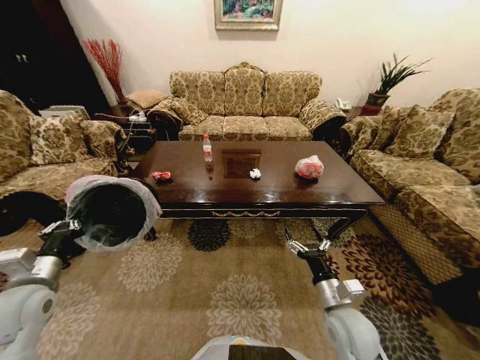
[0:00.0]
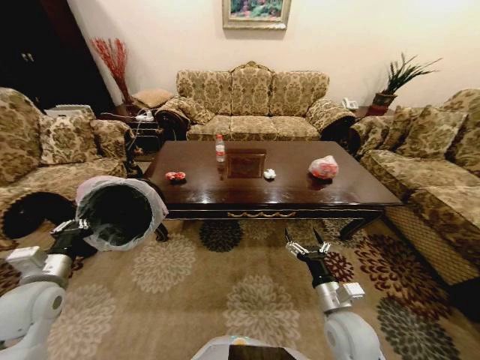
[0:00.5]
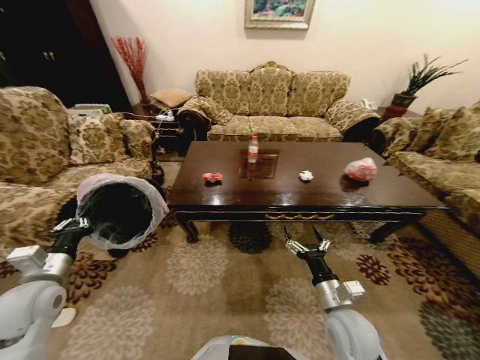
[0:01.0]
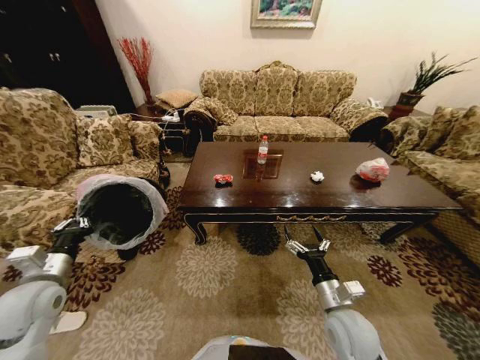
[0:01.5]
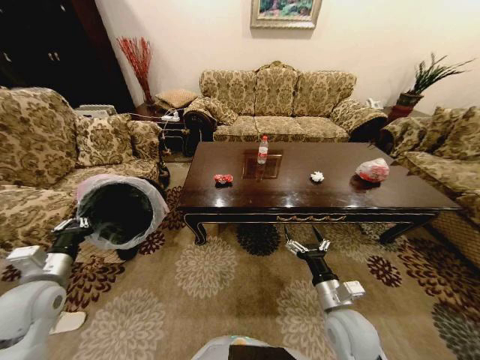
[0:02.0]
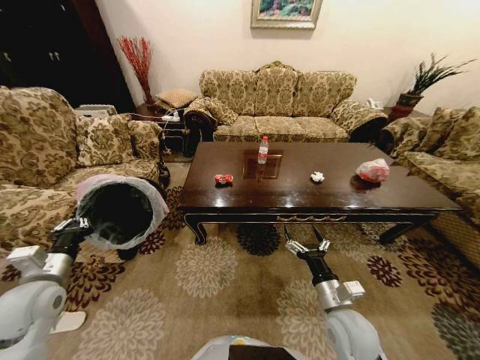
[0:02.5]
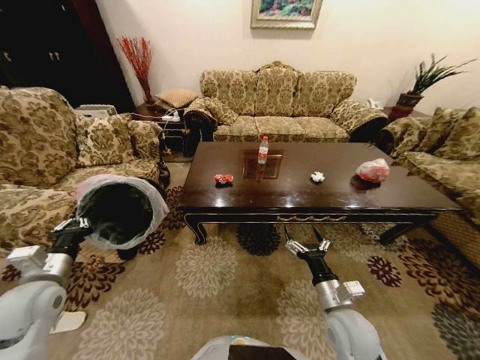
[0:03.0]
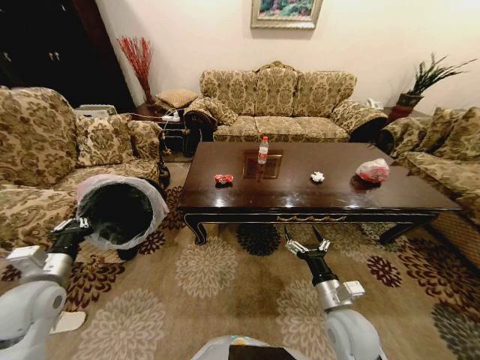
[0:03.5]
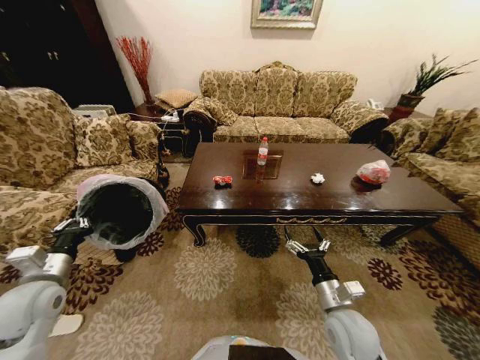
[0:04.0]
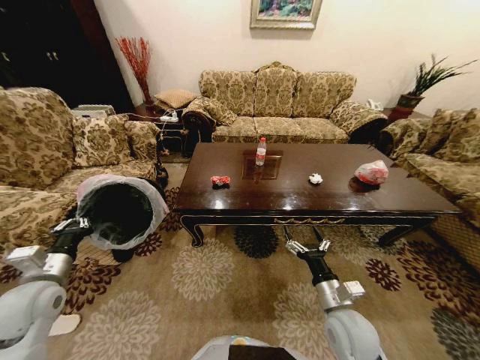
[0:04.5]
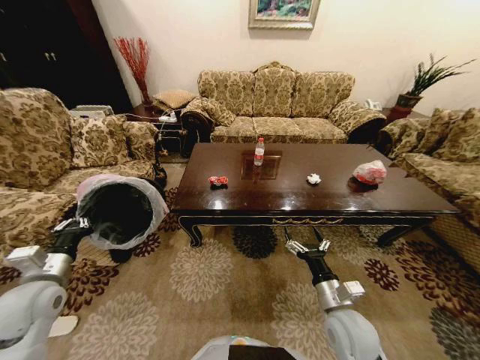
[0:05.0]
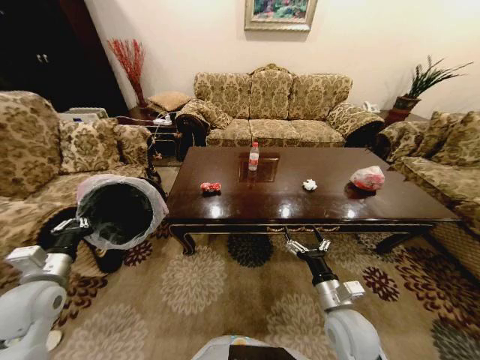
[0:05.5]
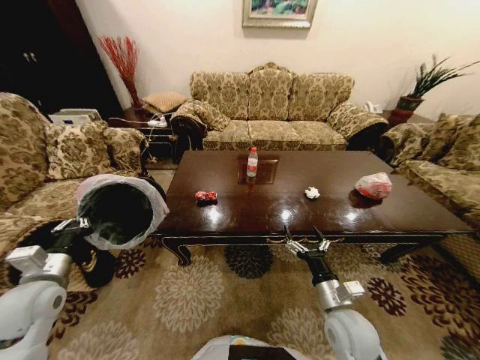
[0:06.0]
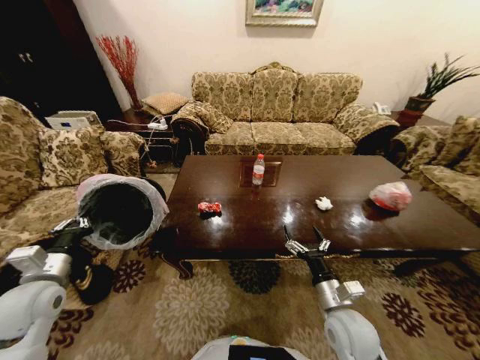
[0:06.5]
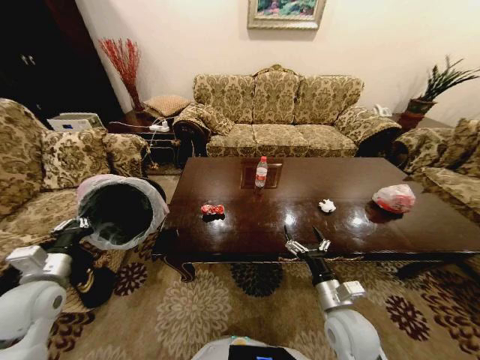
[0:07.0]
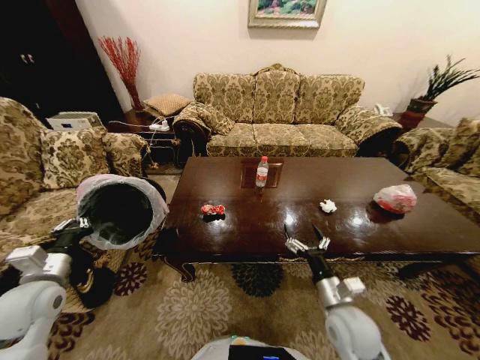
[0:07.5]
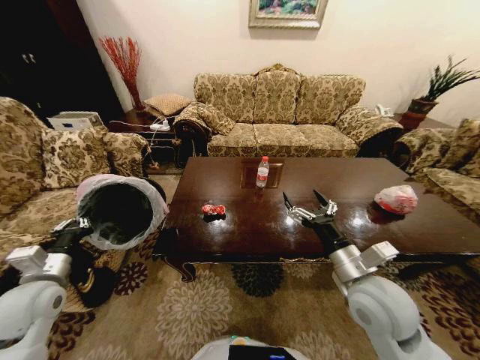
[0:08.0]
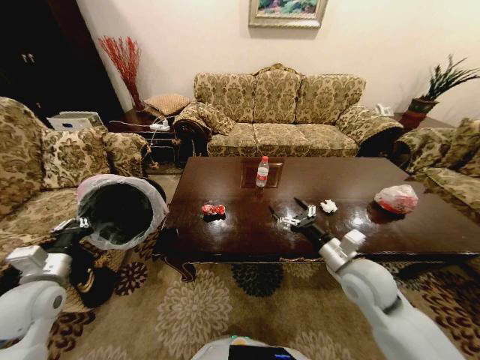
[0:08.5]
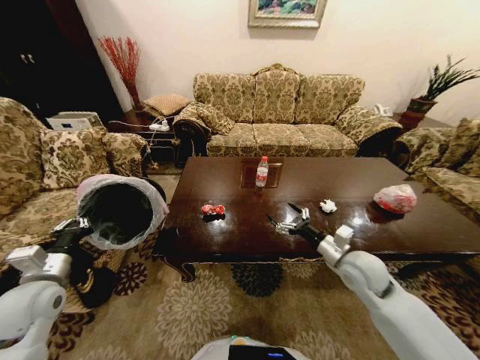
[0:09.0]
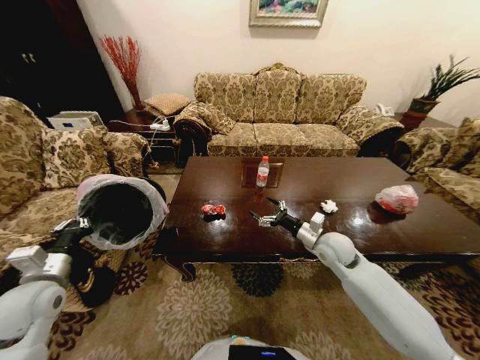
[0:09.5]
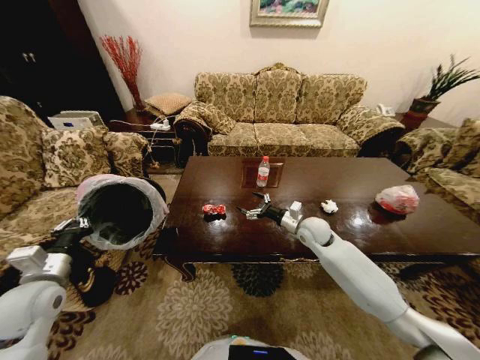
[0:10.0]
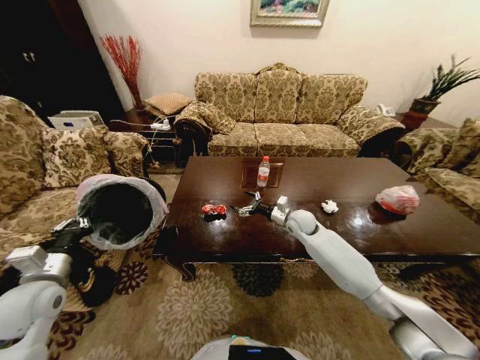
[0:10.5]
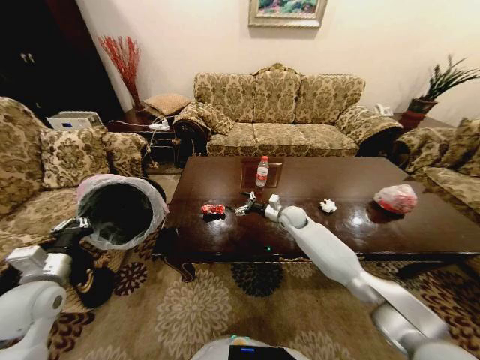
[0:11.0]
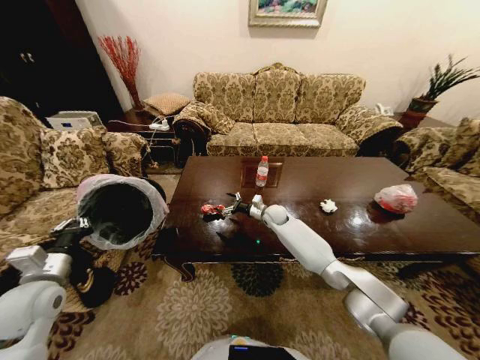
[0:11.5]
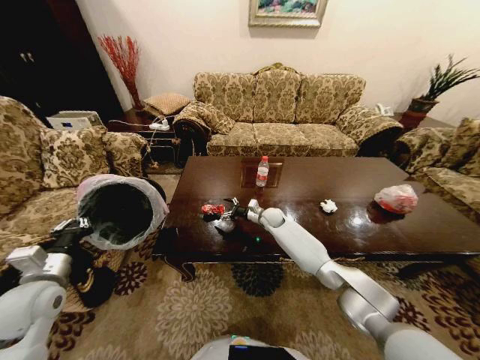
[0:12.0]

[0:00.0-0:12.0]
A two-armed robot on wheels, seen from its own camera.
Task of the whole recording: Move to the front of the table and place the trash on the table into the trash bin.
0:02.0 to 0:04.0: The two grippers keep their place.
0:06.0 to 0:08.0: The right gripper moves upward, about 15 cm.
0:08.0 to 0:10.0: The right gripper goes some 25 cm forward and downward.
0:10.0 to 0:12.0: The right gripper heads forward, to the left and downward, covering about 15 cm.

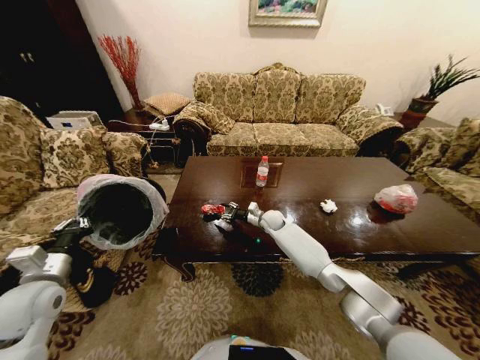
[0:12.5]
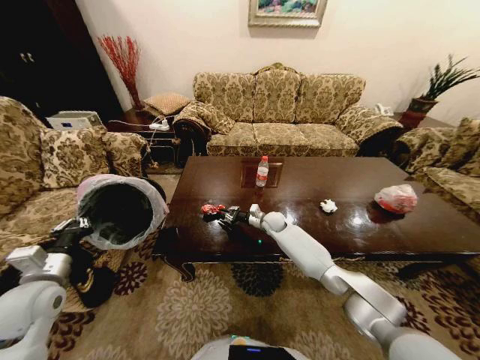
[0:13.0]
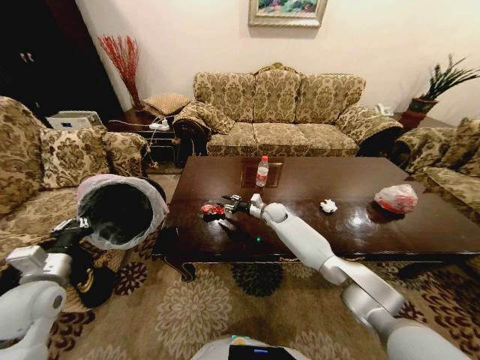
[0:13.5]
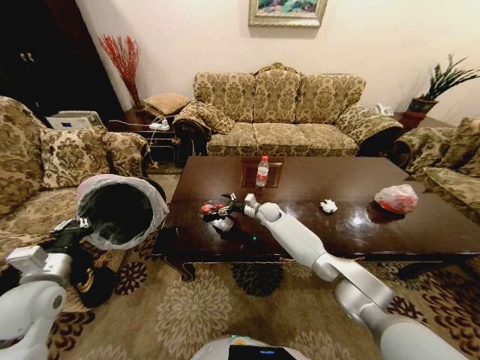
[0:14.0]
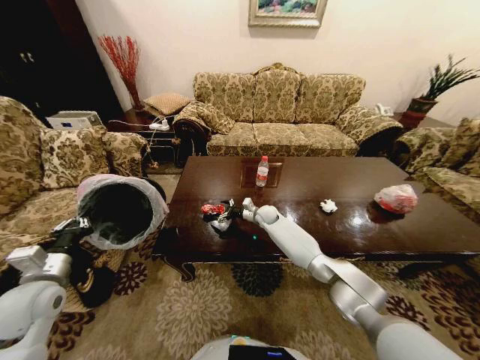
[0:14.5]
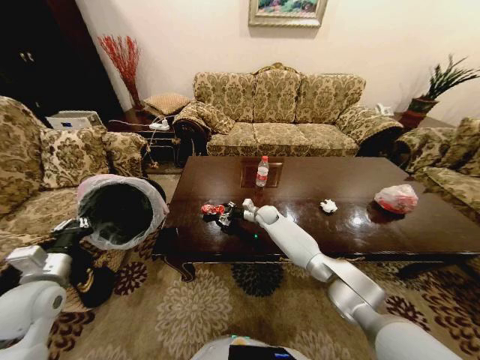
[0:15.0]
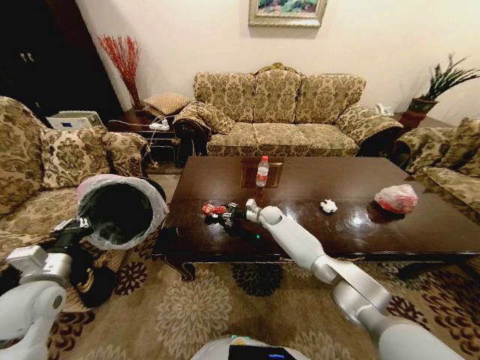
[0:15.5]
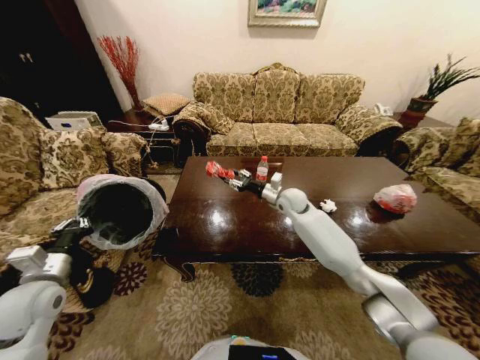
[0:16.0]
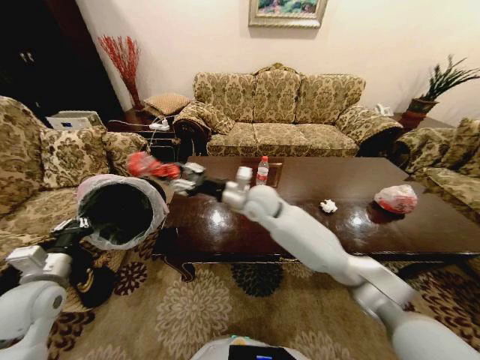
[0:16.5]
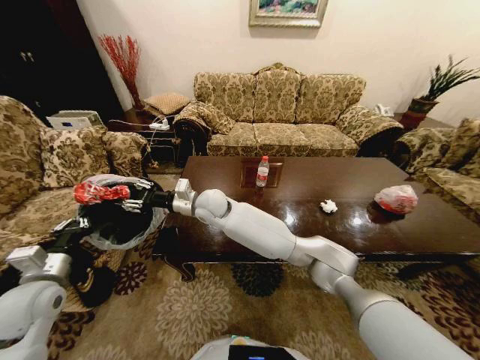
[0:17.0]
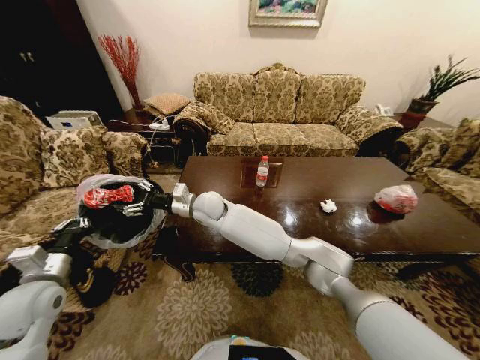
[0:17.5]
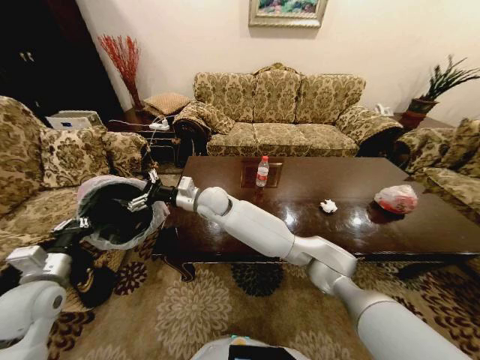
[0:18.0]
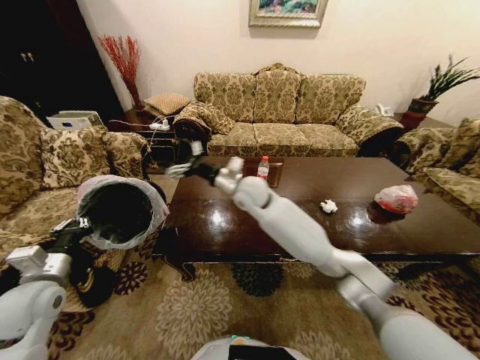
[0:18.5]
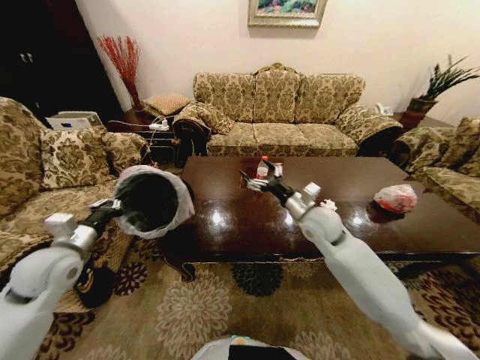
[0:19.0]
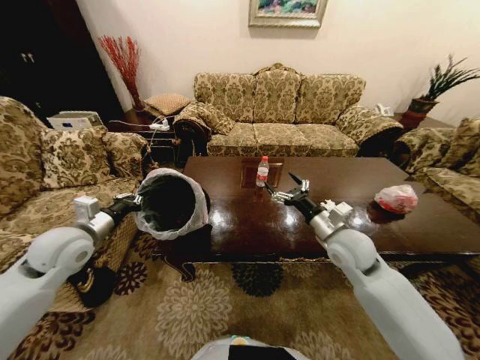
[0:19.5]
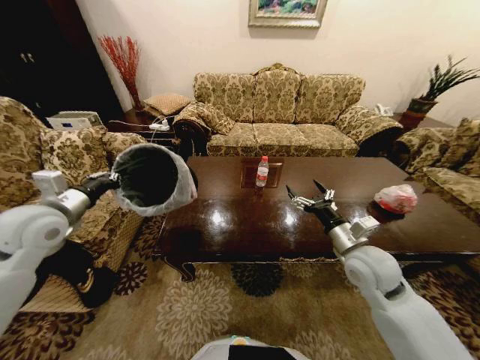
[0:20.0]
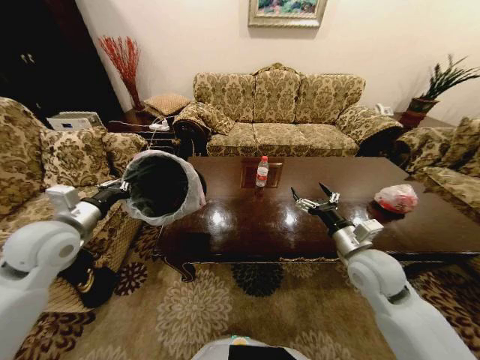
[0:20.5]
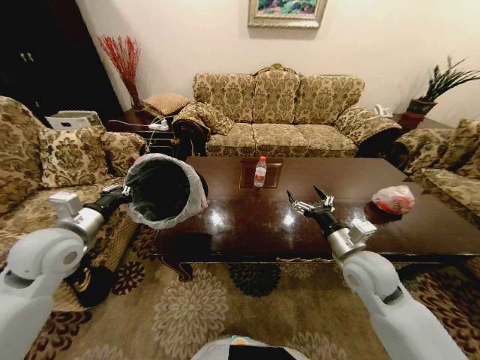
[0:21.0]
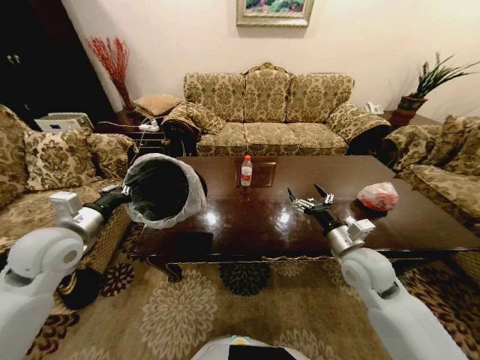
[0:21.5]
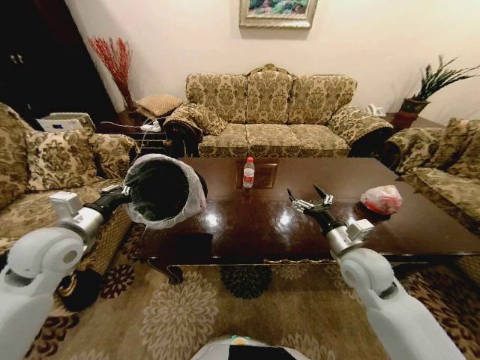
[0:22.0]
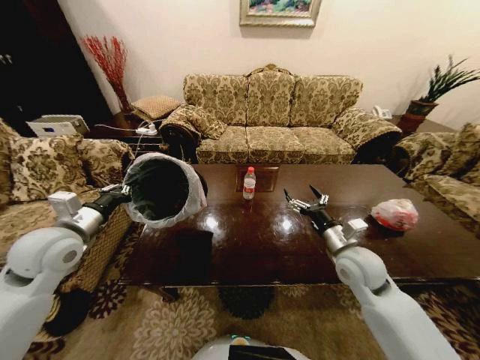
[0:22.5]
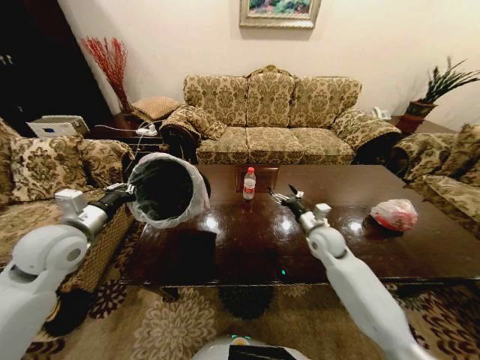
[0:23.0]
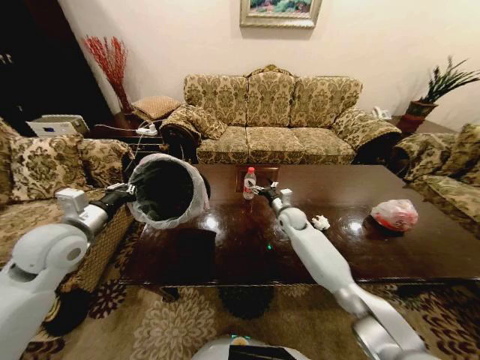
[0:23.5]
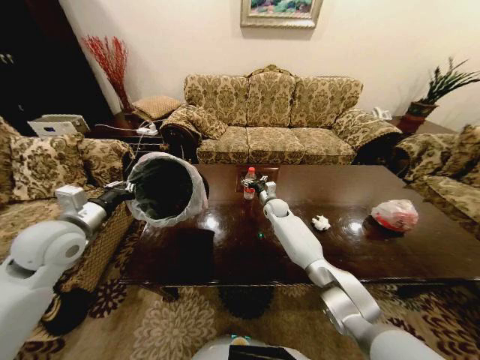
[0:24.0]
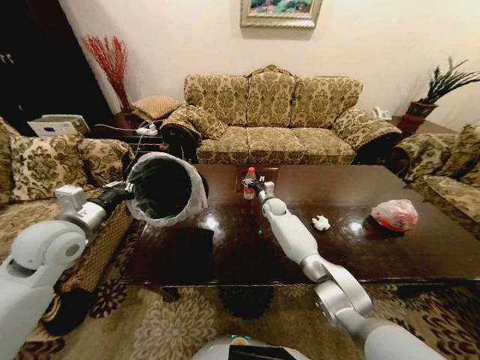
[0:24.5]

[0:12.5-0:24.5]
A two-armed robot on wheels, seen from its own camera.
Task of the whole recording: Move to the front of the table and place the trash on the table into the trash bin.
0:12.5 to 0:14.5: The right gripper opens up.
0:14.5 to 0:16.5: The right gripper travels upward, backward and to the left by roughly 30 cm, and closes up.
0:16.5 to 0:18.5: The right gripper moves about 10 cm to the left and comes back, and opens its fingers.
0:18.5 to 0:20.5: The left gripper heads upward and forward, covering about 15 cm. Meanwhile the right gripper is displaced to the right and backward by some 30 cm.
0:22.5 to 0:24.5: The right gripper shifts some 35 cm forward, to the left and downward.

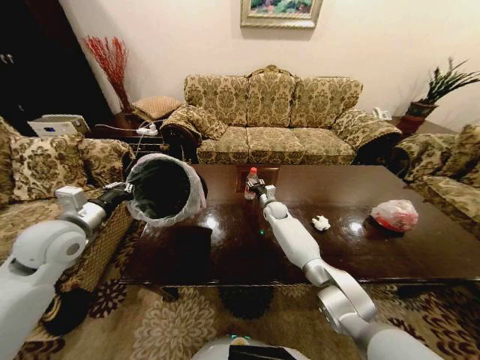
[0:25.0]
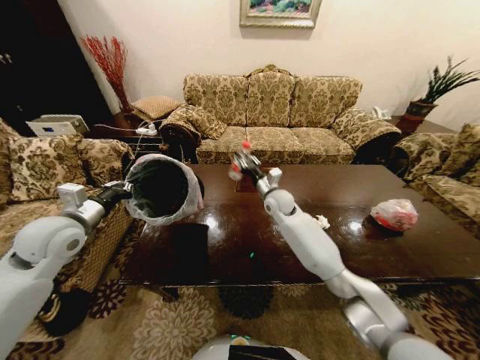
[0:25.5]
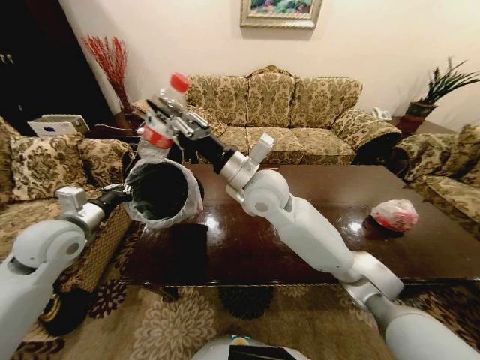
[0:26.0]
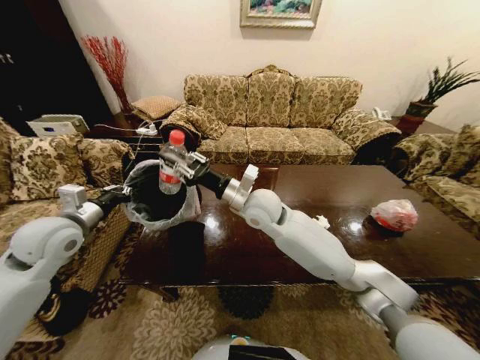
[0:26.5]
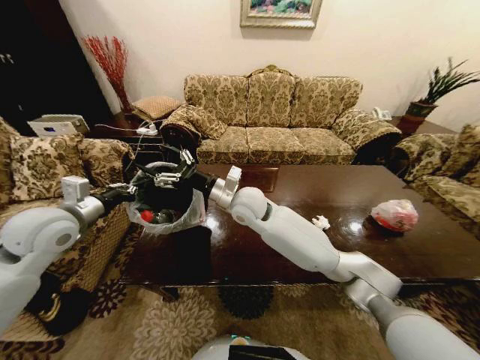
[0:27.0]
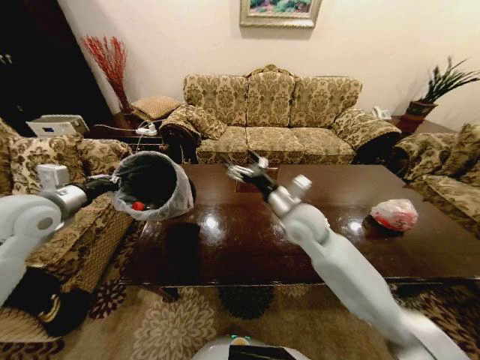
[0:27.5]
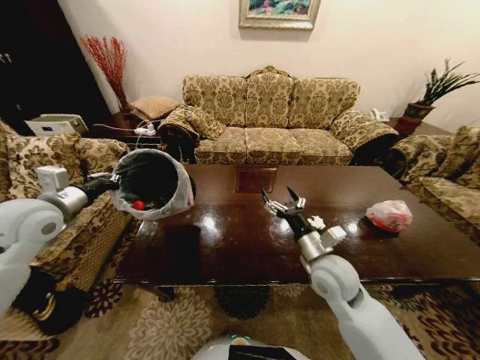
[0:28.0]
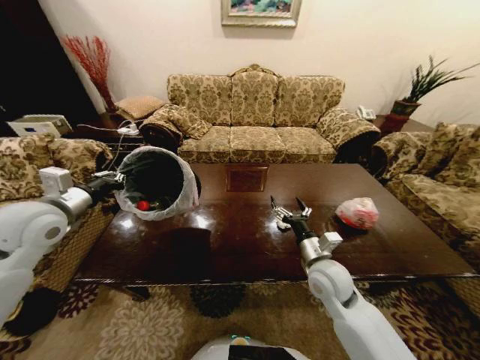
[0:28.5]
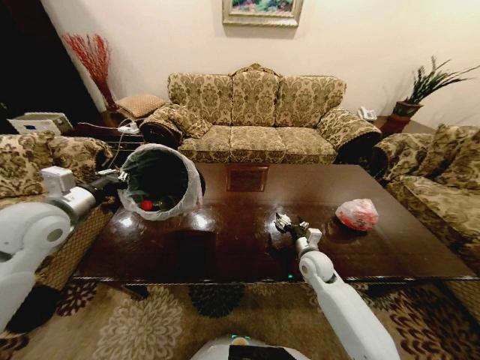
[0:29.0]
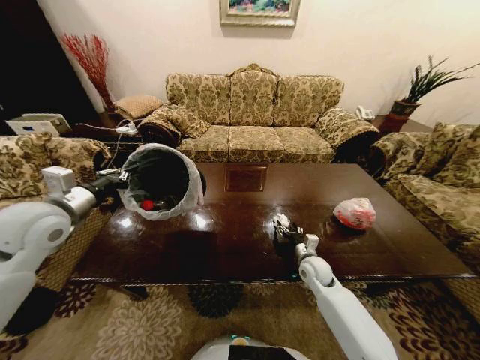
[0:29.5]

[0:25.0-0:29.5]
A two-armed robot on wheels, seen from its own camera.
Task of the whole recording: Move to the front of the table and place the trash on the table into the trash bin.
0:25.0 to 0:27.0: The right gripper is displaced upward, backward and to the left by about 30 cm, and opens.
0:27.0 to 0:29.5: The right gripper shifts approximately 35 cm downward and to the right.
